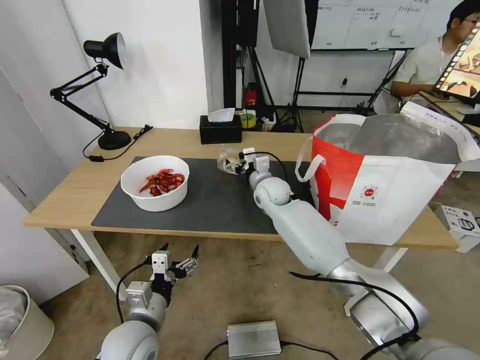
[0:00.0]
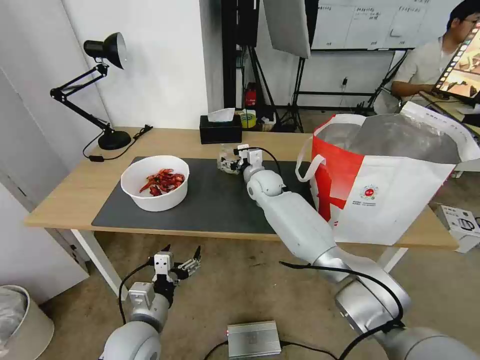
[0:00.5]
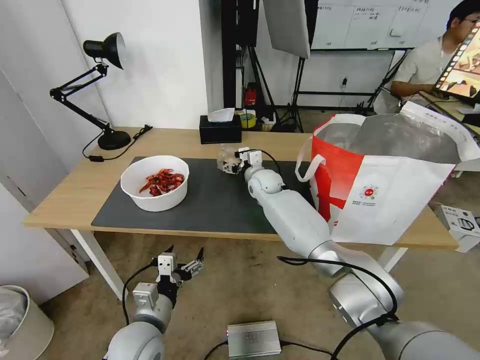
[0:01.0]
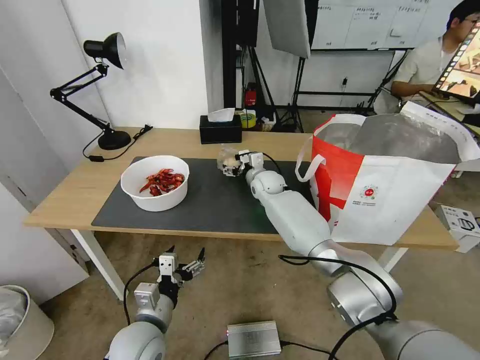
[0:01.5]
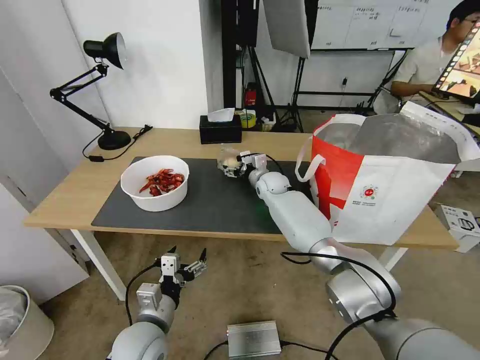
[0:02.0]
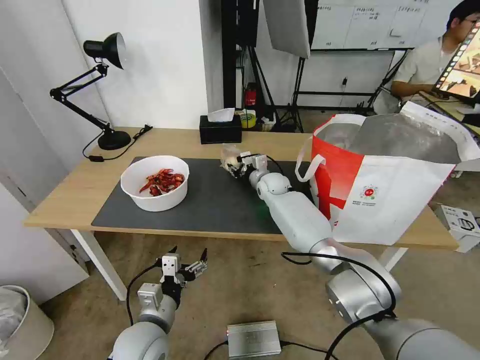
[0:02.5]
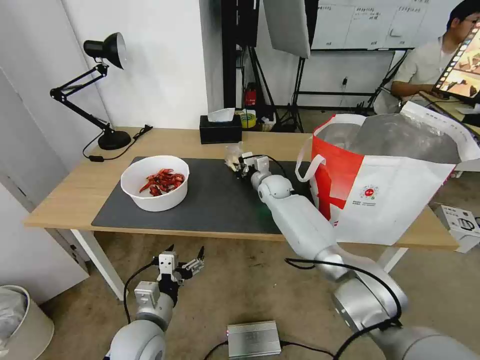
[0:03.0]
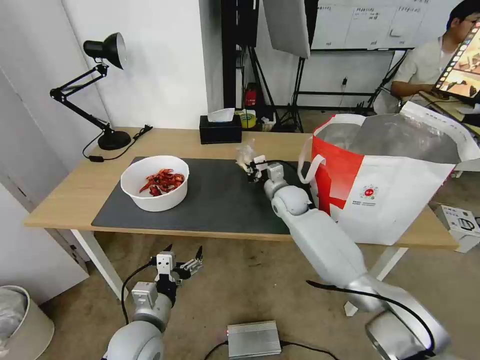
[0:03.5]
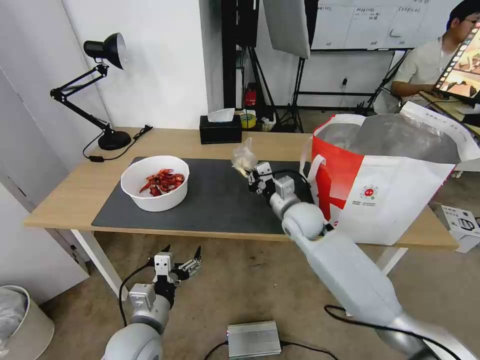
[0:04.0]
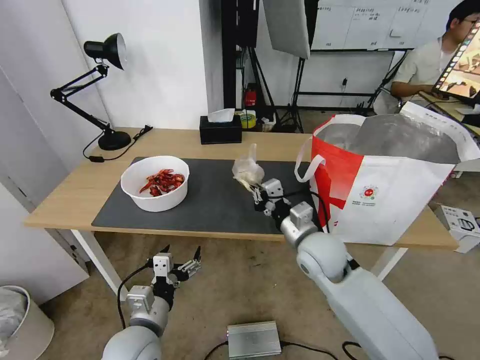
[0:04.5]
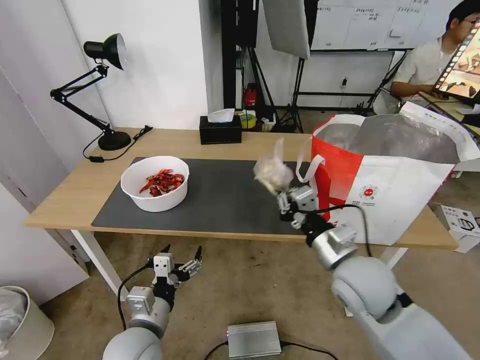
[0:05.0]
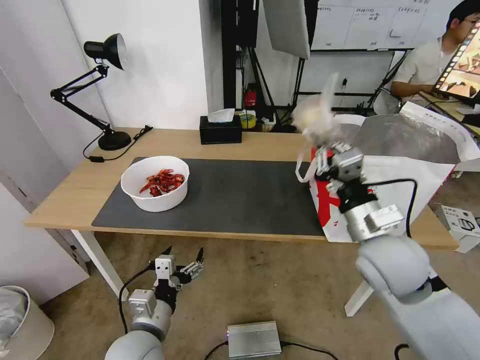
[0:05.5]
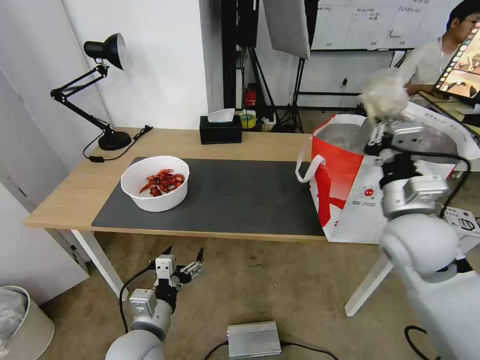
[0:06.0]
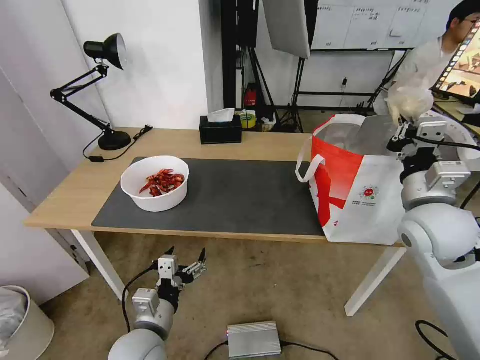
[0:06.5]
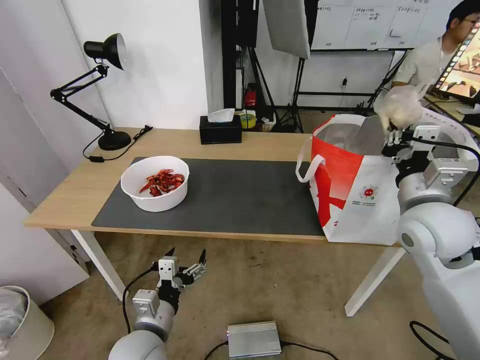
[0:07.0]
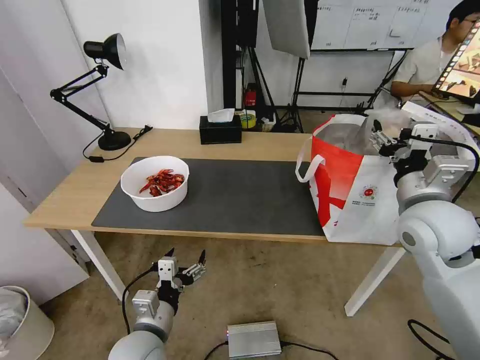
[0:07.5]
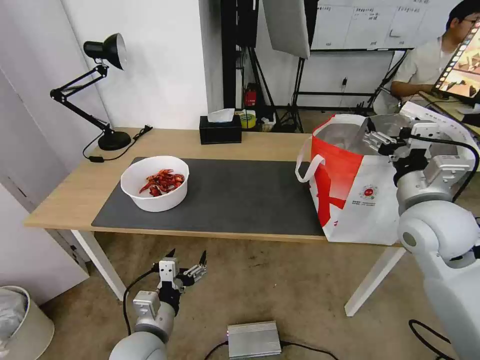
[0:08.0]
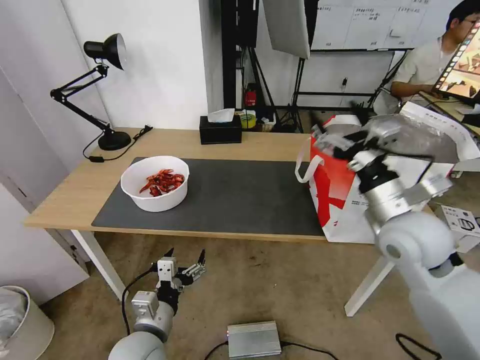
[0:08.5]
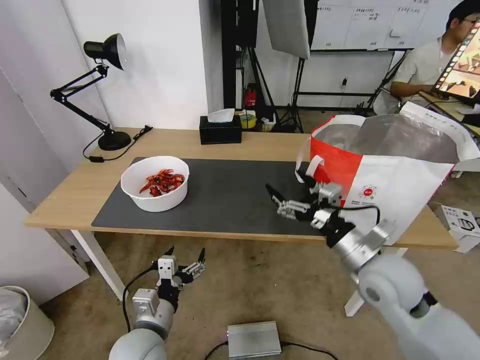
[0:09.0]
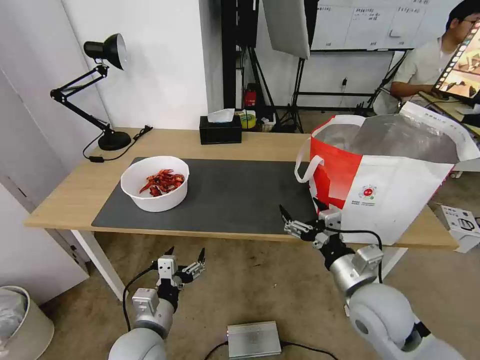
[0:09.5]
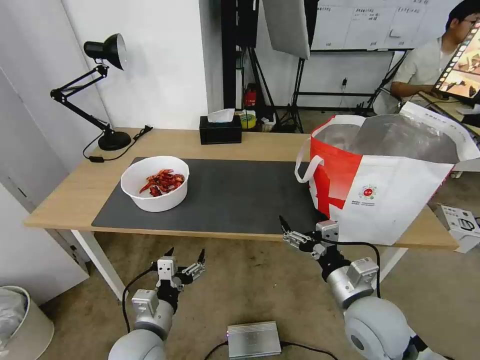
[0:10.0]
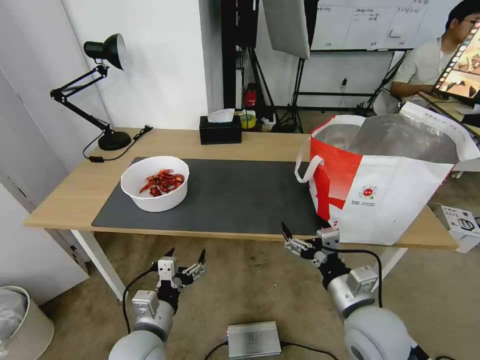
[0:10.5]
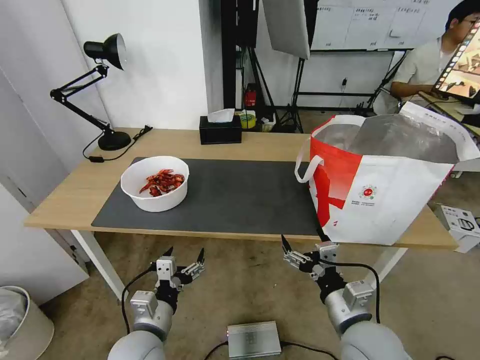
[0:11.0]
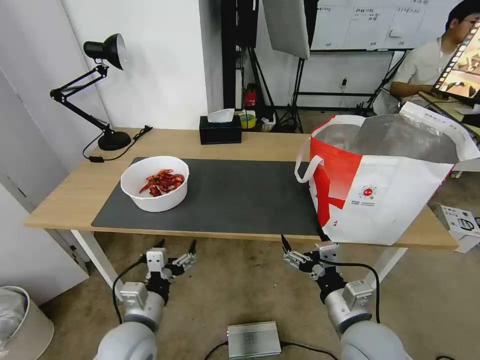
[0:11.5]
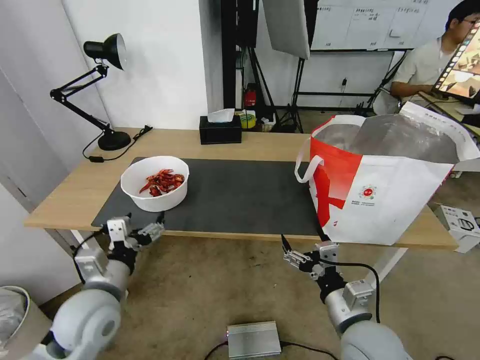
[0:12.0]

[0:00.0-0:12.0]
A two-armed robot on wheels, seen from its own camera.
Task of the whole recording: Pick up the trash from the table and place it into the takeout bag.
0:00.0 to 0:02.0: The right gripper heads forward, covering some 5 cm.
0:02.0 to 0:04.0: The right gripper heads backward, covering about 15 cm, and closes its fingers.
0:04.0 to 0:06.0: The right gripper moves backward, to the right and upward, roughly 25 cm.
0:06.0 to 0:08.0: The right gripper opens its fingers.
0:08.0 to 0:10.0: The right gripper goes about 20 cm downward, backward and to the left.
0:10.0 to 0:12.0: The left gripper moves upward and to the left, some 10 cm.

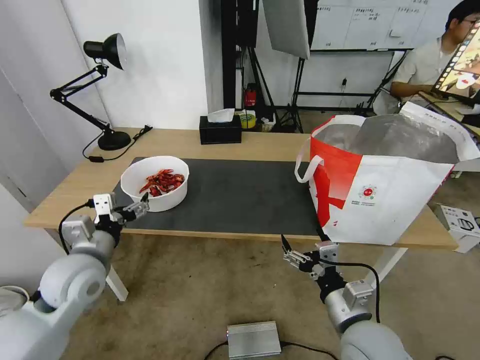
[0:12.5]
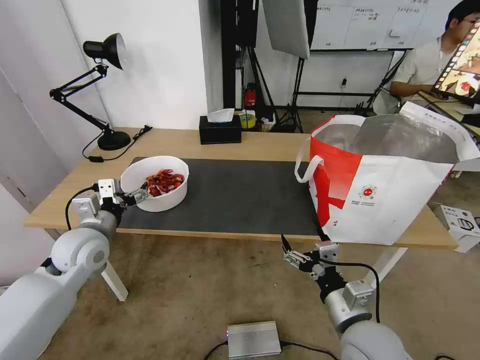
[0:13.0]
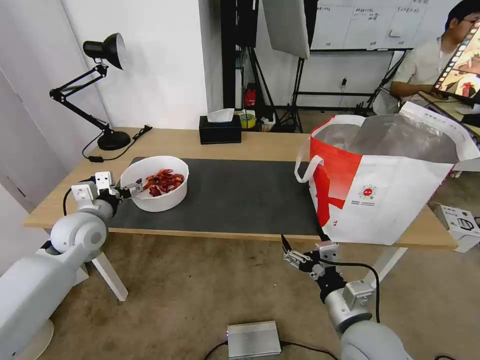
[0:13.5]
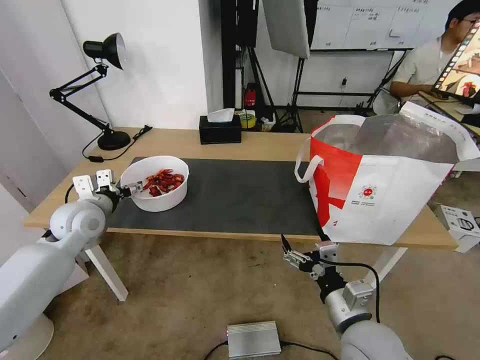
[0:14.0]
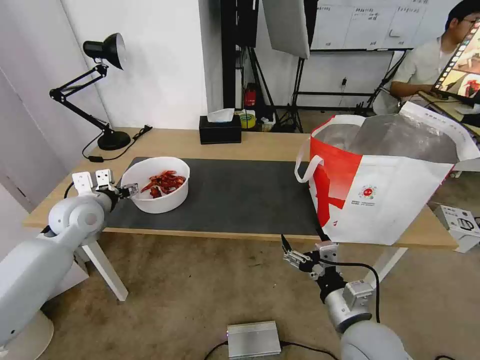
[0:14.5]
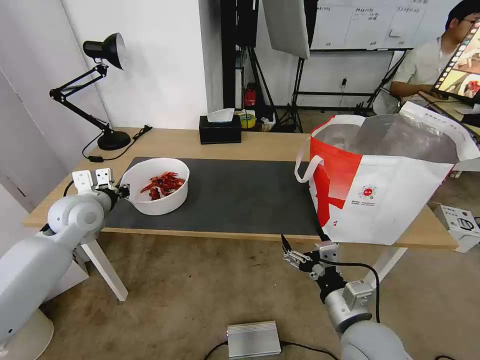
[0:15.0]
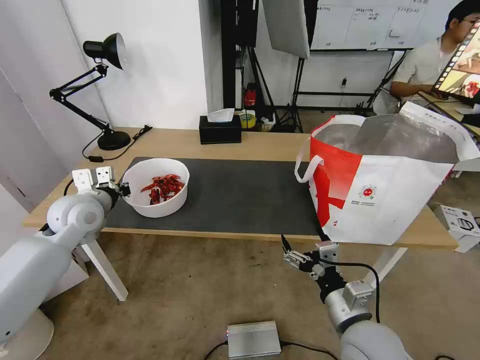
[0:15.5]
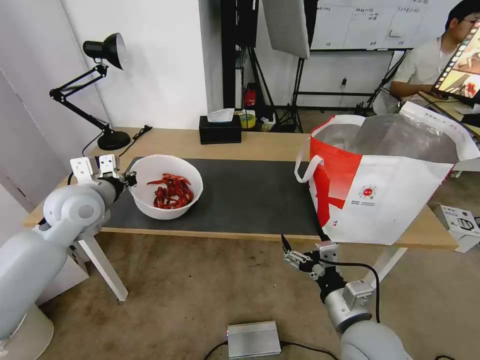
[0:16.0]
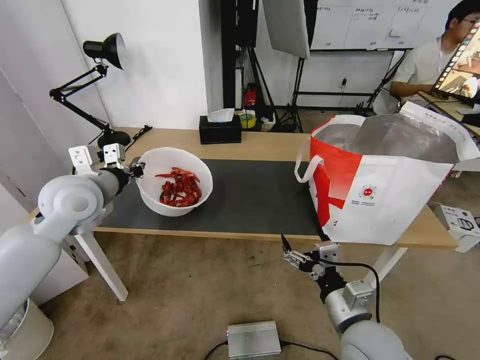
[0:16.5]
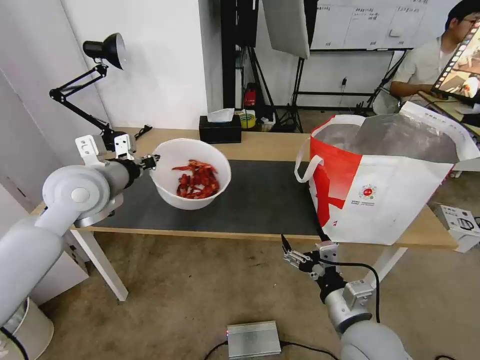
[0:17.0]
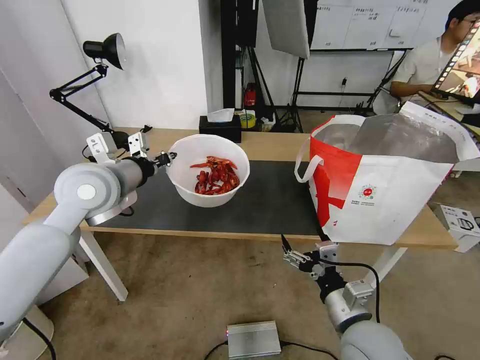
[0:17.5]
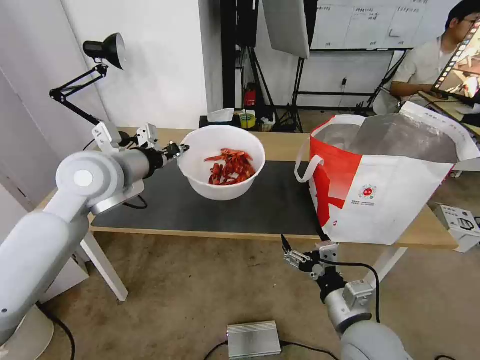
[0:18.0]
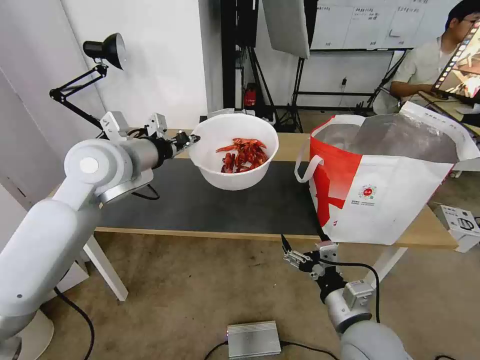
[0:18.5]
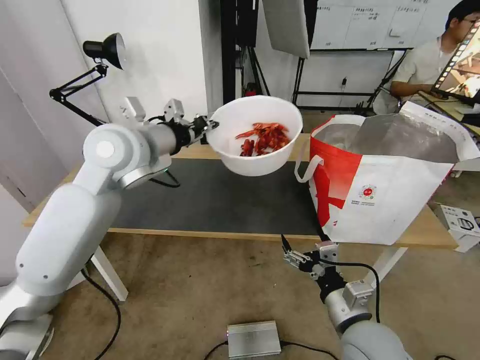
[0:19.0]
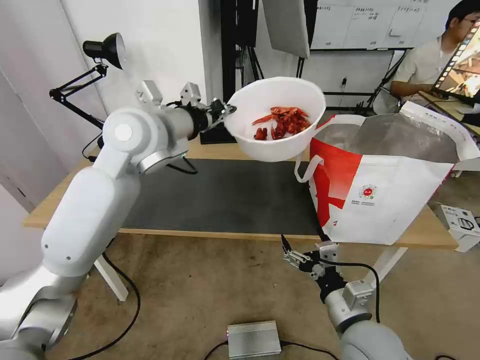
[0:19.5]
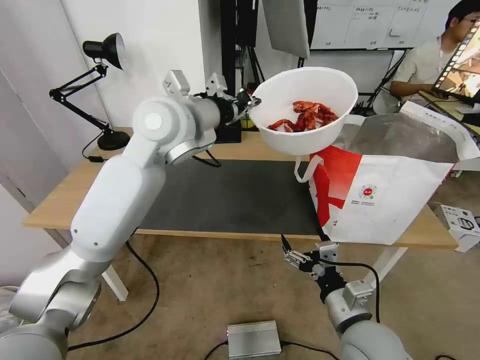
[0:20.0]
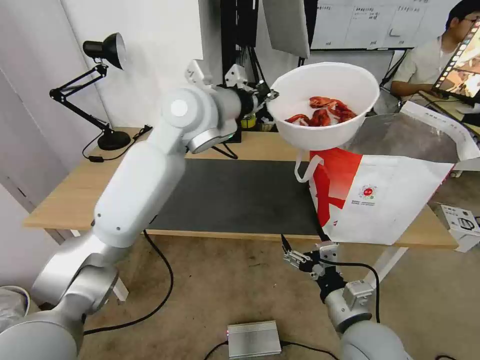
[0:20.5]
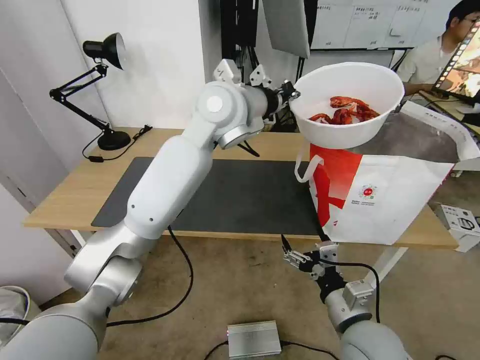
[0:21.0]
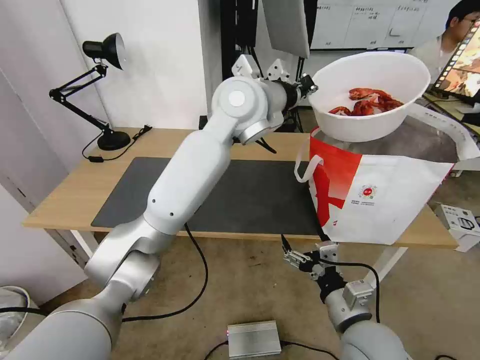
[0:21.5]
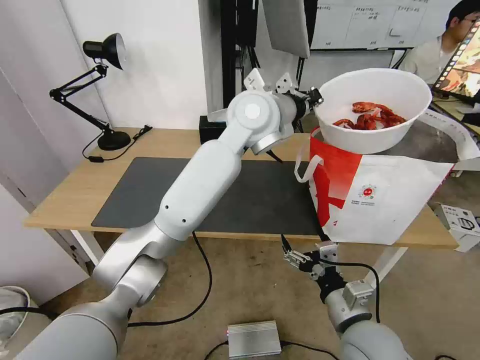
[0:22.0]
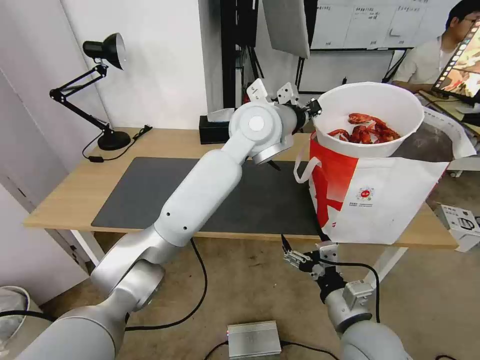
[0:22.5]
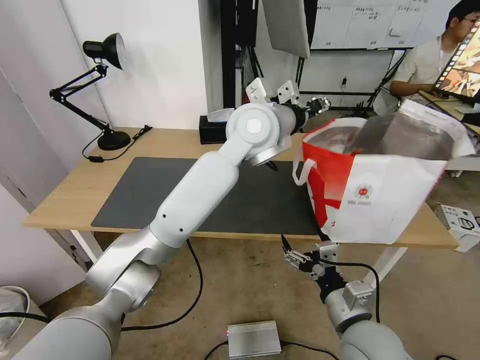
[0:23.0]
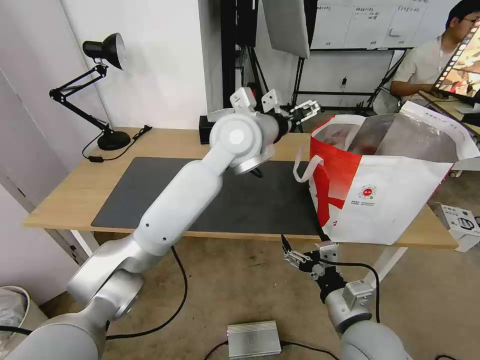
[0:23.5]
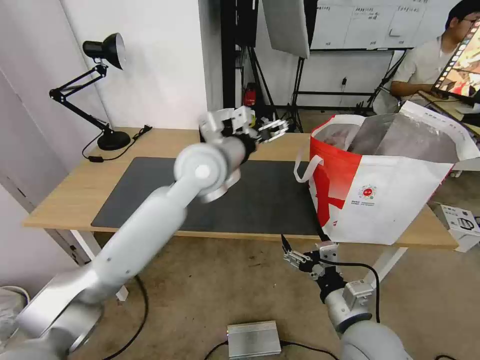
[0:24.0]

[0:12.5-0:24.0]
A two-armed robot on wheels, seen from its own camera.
Task of the whole recording: Pick up the trash from the table and place it into the takeout bag.
0:12.5 to 0:14.5: The left gripper shifts approximately 15 cm forward.
0:14.5 to 0:16.5: The left gripper moves upward, some 10 cm, and closes its fingers.
0:16.5 to 0:18.5: The left gripper goes roughly 10 cm to the right and upward.
0:18.5 to 0:20.0: The left gripper shifts some 10 cm to the right and upward.
0:20.0 to 0:22.0: The left gripper travels to the right by roughly 15 cm.
0:22.0 to 0:24.0: The left gripper heads to the left and downward, covering roughly 10 cm, and opens.

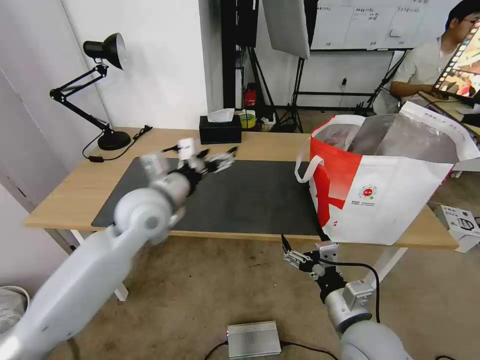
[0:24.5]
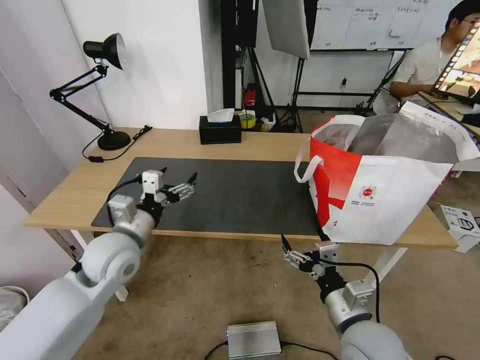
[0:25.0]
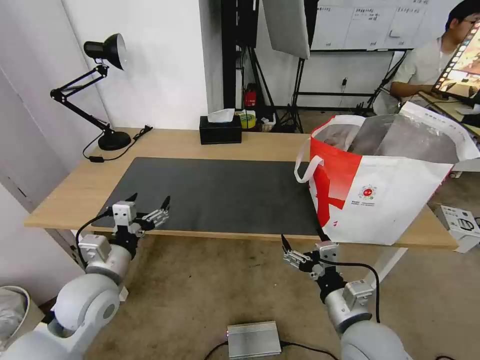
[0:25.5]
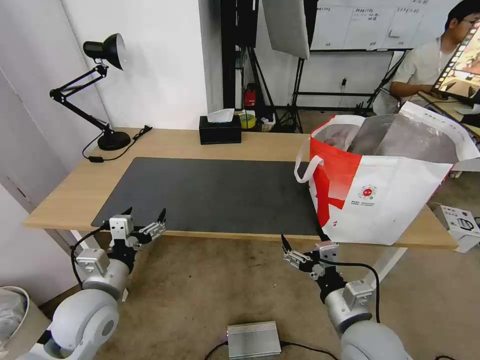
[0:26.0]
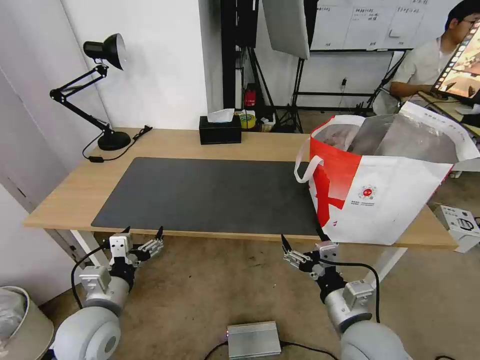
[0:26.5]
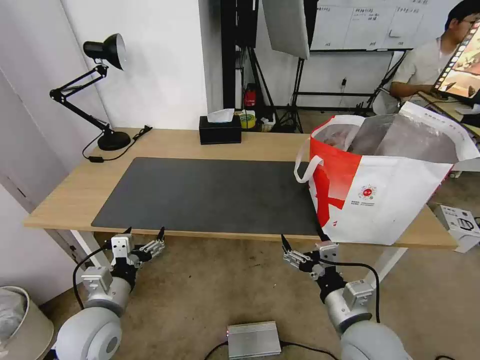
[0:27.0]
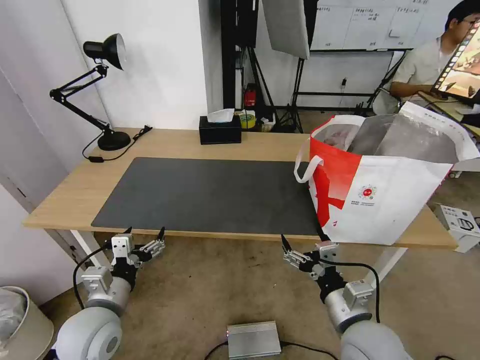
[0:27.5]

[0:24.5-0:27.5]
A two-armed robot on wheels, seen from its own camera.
Task of the whole recording: Pick up the trash from the table and place it into the takeout bag.
0:24.5 to 0:26.0: The left gripper moves backward, downward and to the left, about 20 cm.
0:26.0 to 0:27.5: There are only small adjustments of the grippers.
